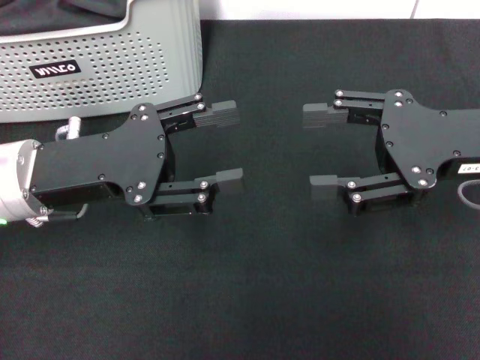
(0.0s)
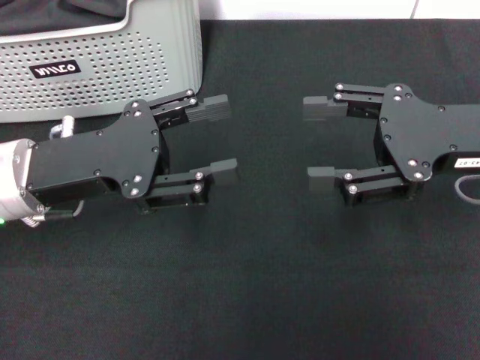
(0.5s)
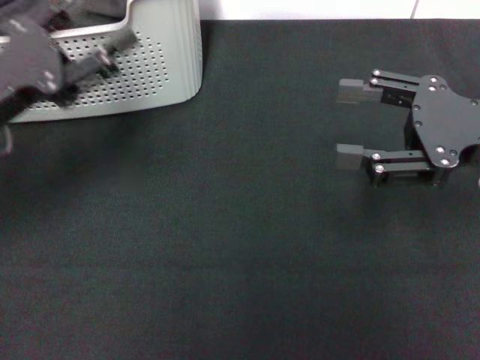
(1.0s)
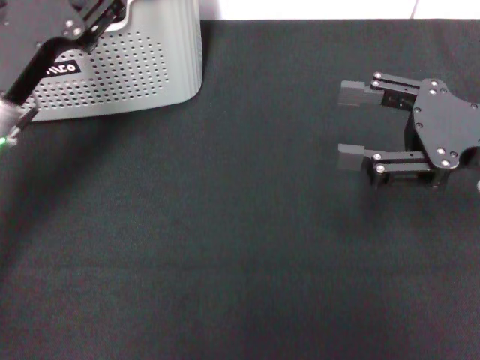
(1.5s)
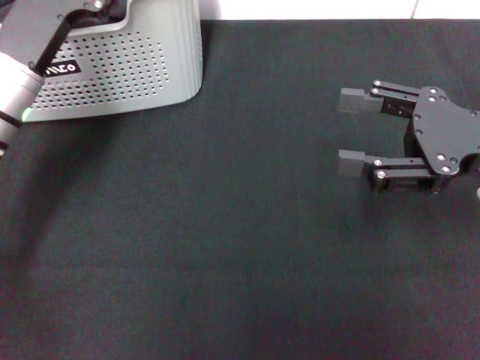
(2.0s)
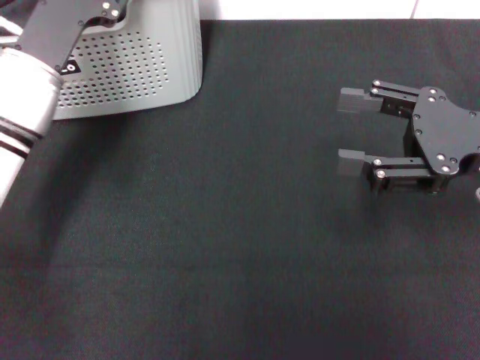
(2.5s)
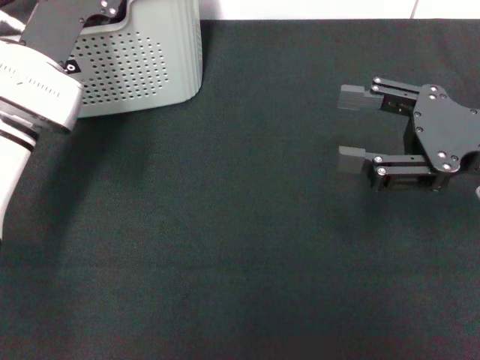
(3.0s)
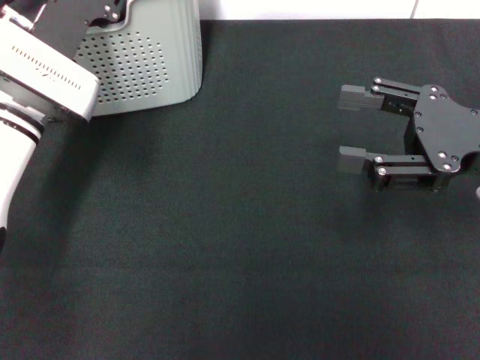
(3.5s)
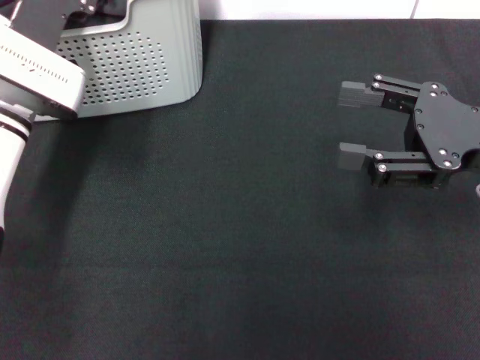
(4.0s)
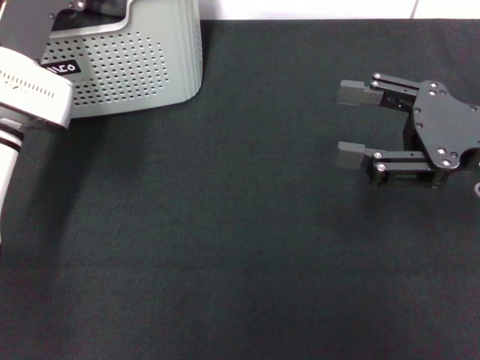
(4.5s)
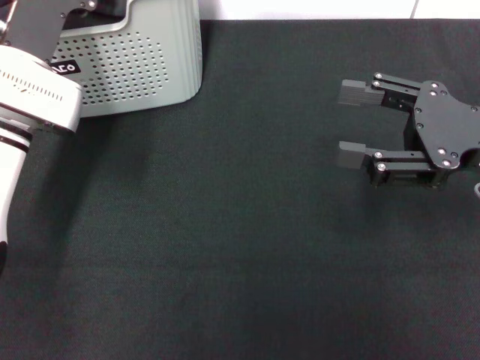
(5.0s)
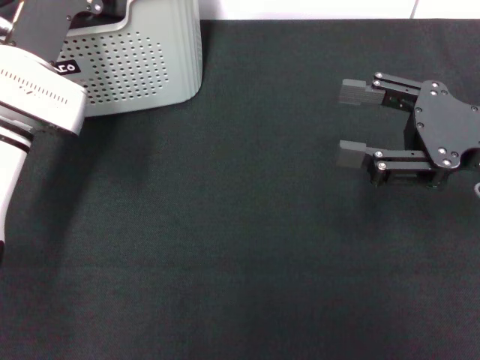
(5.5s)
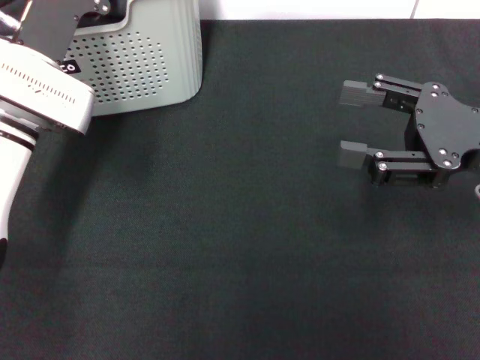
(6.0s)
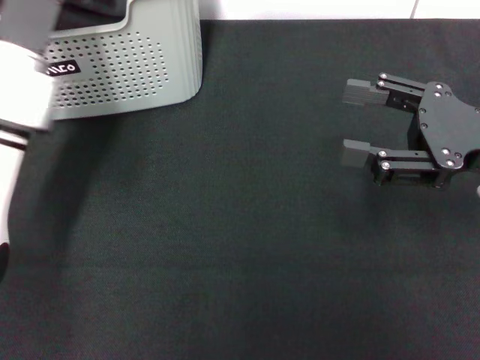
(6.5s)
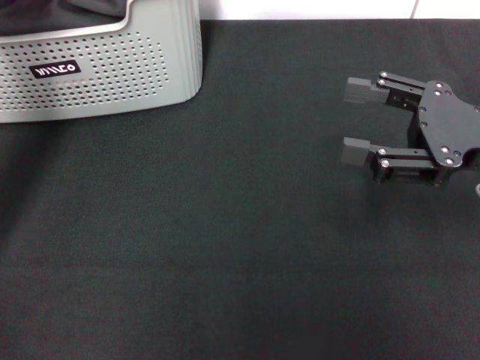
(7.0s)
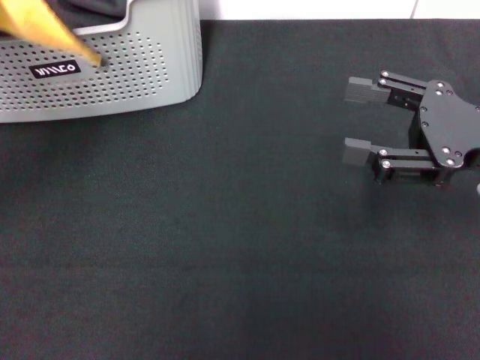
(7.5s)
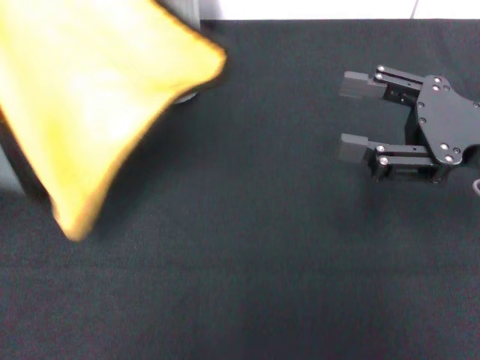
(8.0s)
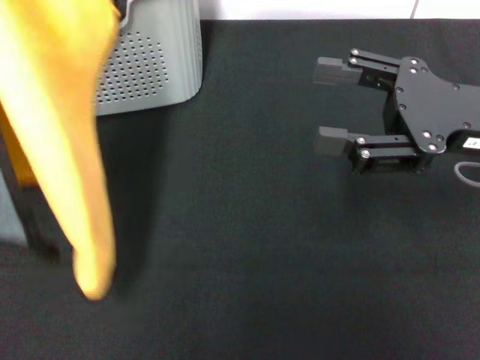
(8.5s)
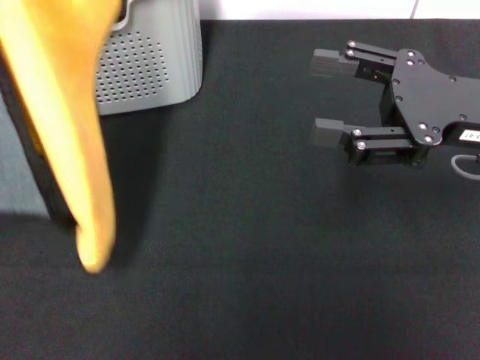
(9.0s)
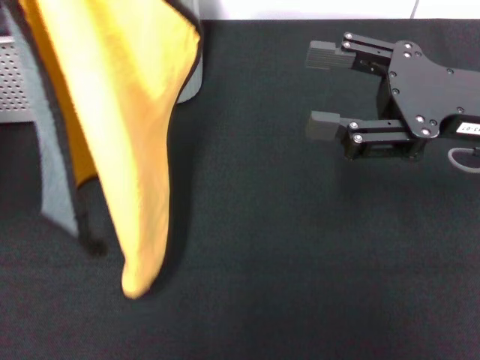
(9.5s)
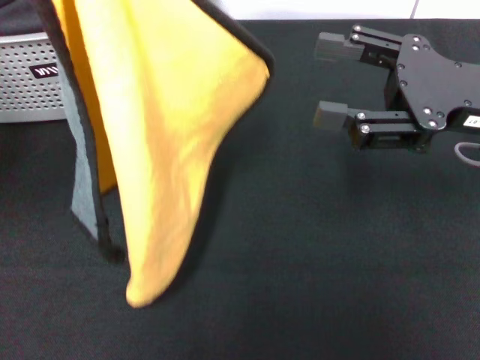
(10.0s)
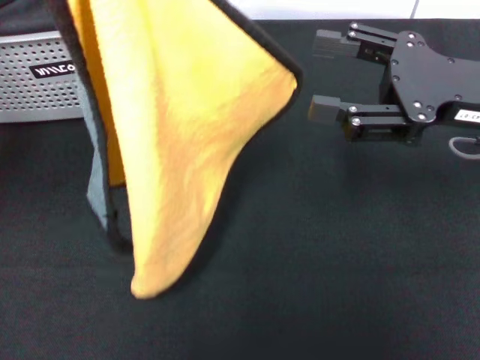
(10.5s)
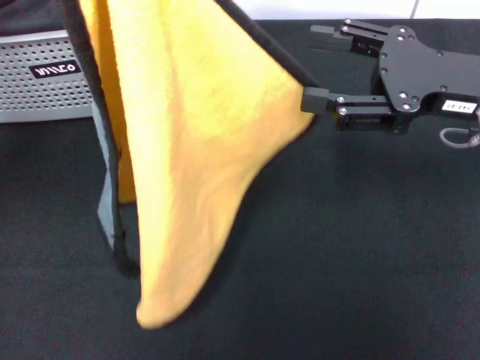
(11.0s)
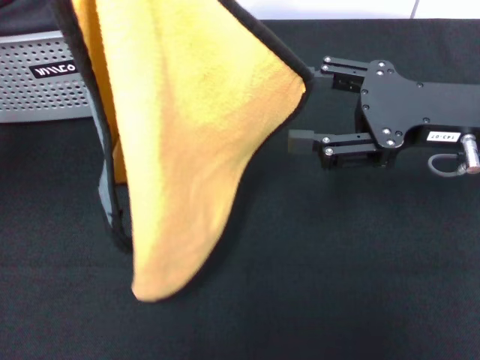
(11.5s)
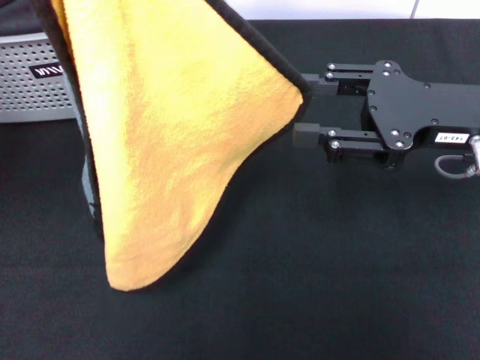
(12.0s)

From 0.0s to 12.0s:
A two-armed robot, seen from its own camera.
Task of the whole recording: pick up the towel from the storage box and lay it flat on the black tablecloth.
Step, from 0.0s to 6.0s: Pick up a towel with the left gripper.
From 0.0s to 2.0s: The left gripper travels forward by roughly 5 cm.
From 4.0s to 6.0s: The left gripper closes up.
From 6.0s to 8.0s: The left gripper moves upward, backward and to the left, about 20 cm.

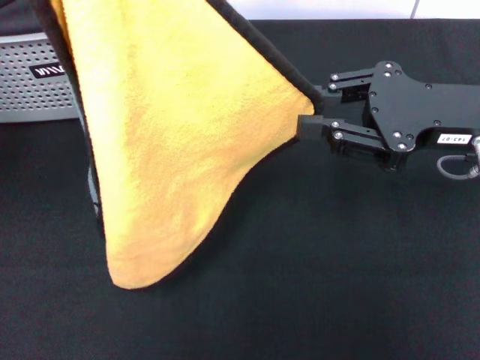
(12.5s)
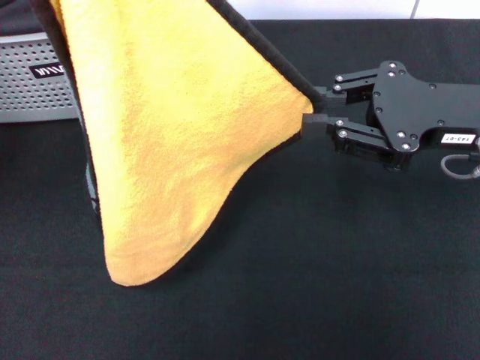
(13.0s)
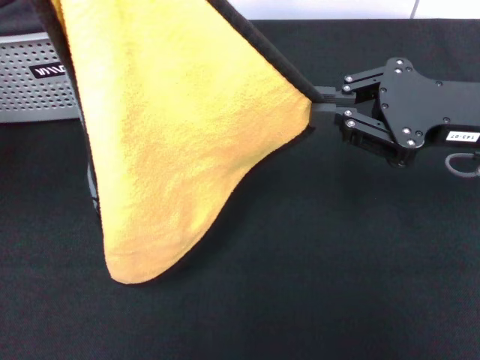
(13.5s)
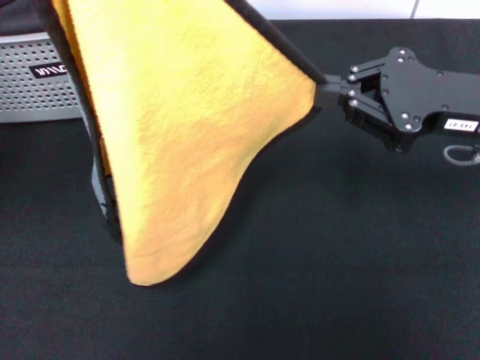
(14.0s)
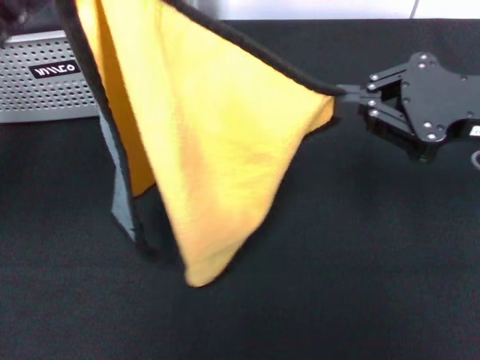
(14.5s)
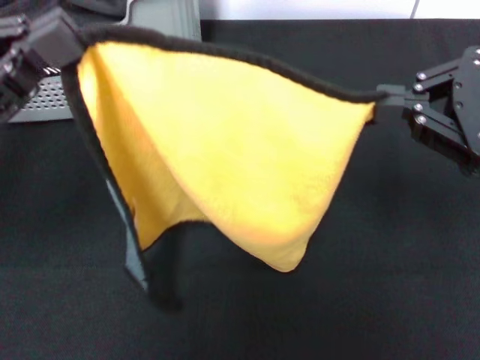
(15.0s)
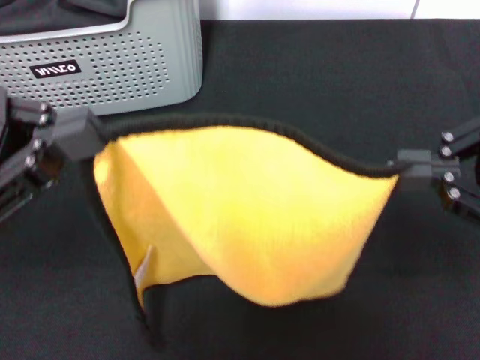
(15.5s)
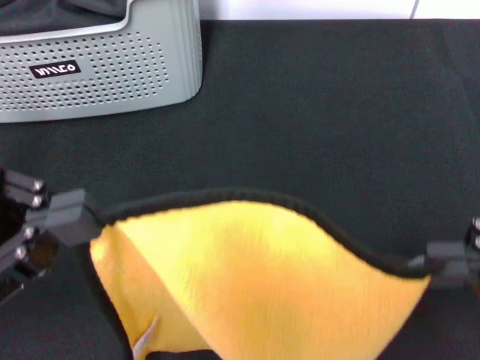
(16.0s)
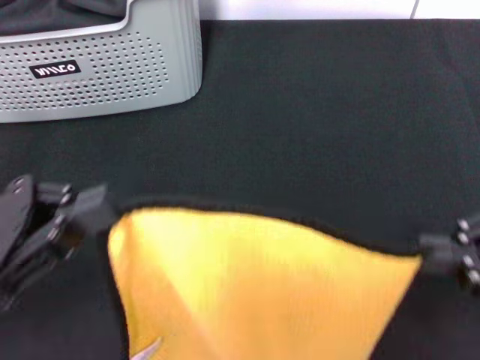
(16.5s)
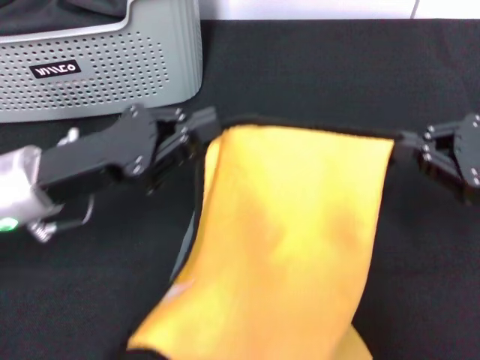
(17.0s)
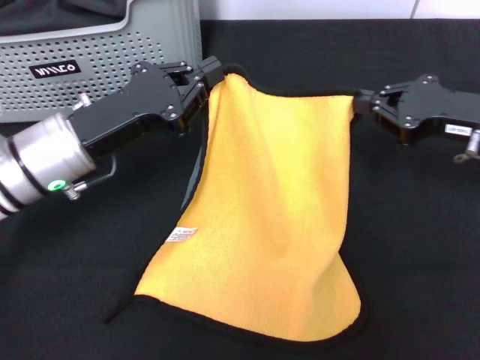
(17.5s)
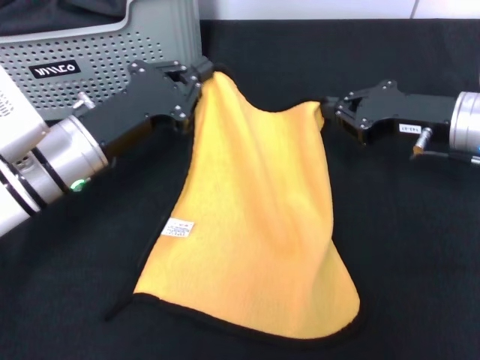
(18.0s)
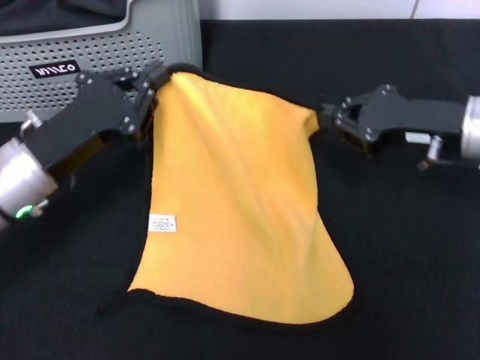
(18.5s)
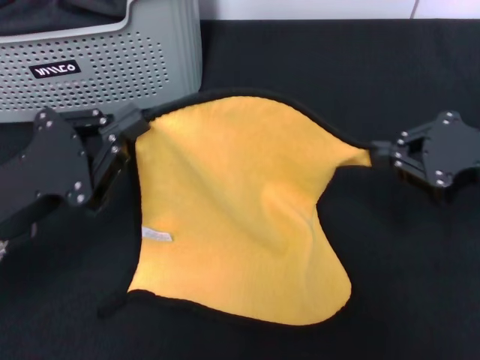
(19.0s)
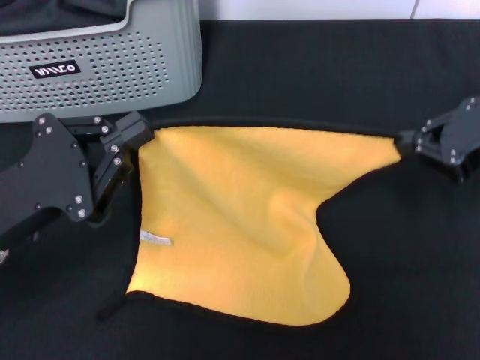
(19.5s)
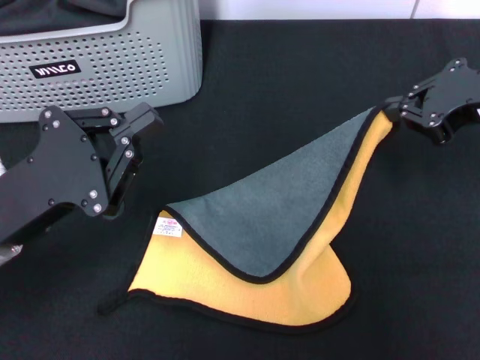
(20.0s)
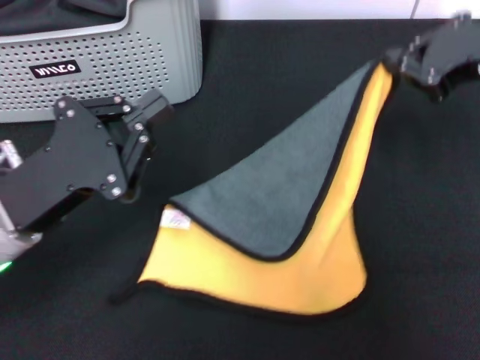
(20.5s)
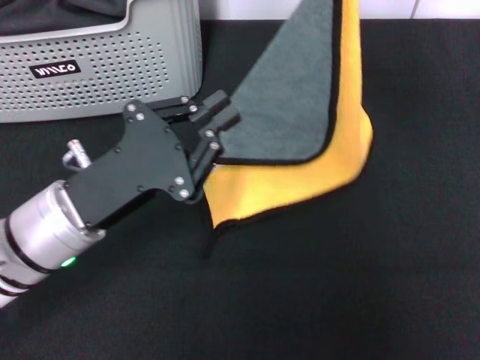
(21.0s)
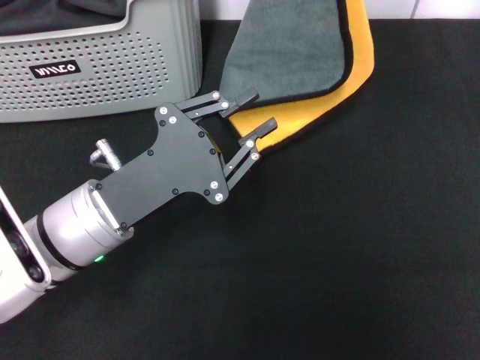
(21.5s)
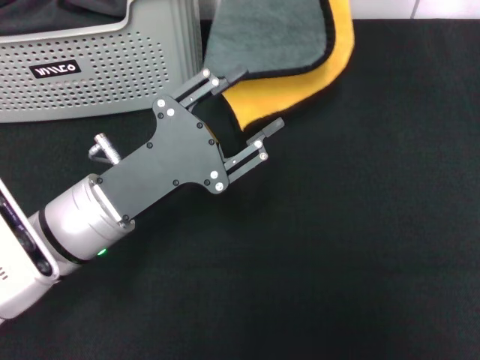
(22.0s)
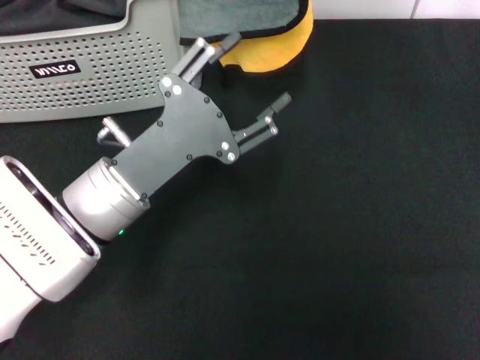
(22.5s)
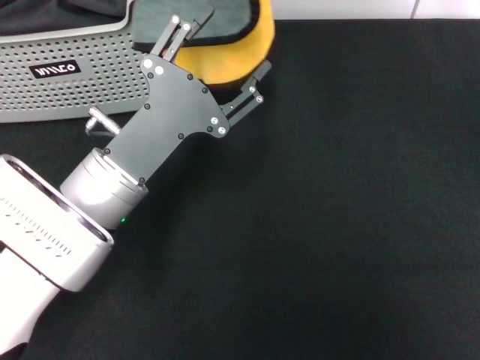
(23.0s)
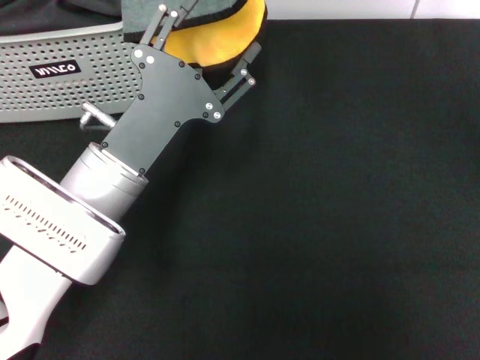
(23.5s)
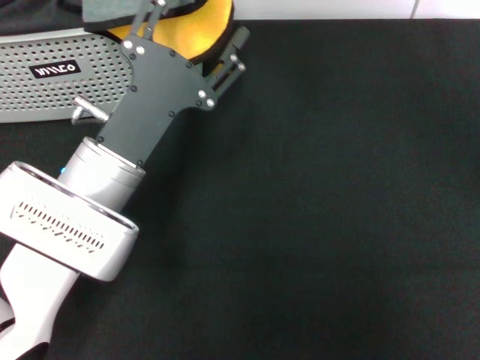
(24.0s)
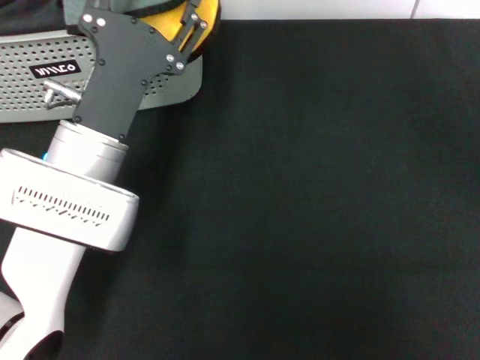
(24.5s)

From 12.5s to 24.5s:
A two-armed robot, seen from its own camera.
Task of the whole recording: pick up the towel from the storage box and lay it flat on the black tablecloth.
From 12.5s to 14.5s: The right gripper closes its fingers.
From 14.5s to 16.5s: The right gripper heads backward, covering about 10 cm. The left gripper is displaced backward and downward by approximately 10 cm.
From 16.5s to 18.5s: Both grippers move forward and downward, about 15 cm.
From 18.5s to 20.5s: The right gripper heads upward, covering approximately 15 cm. The left gripper shifts approximately 5 cm backward.
From 20.5s to 22.5s: The right gripper goes some 20 cm upward and to the left. The left gripper moves to the right, roughly 10 cm, and opens up.
From 22.5s to 24.5s: The right gripper goes approximately 10 cm to the left.

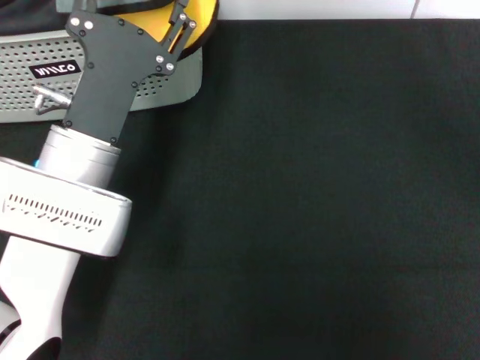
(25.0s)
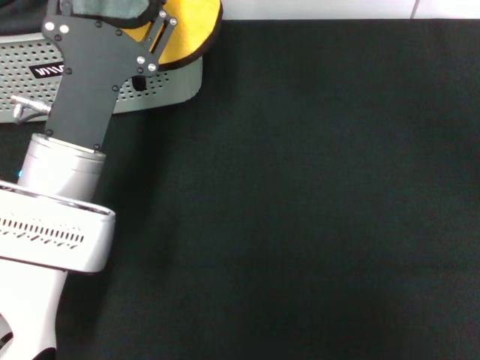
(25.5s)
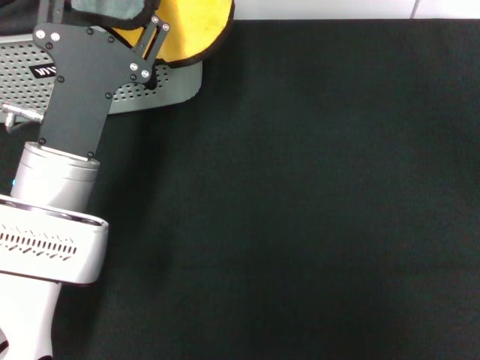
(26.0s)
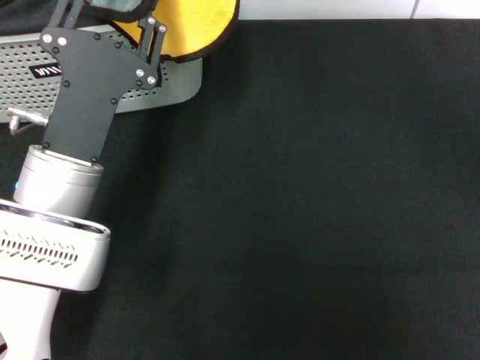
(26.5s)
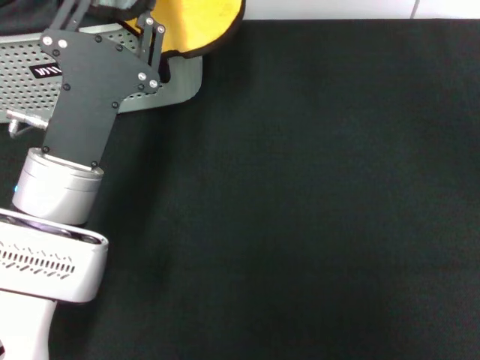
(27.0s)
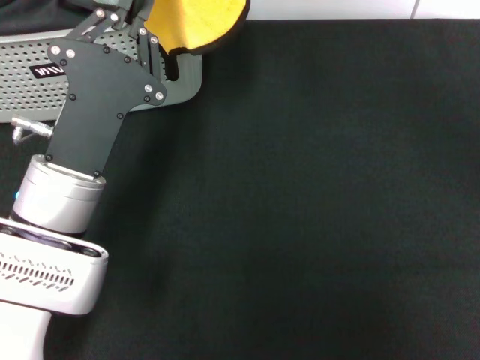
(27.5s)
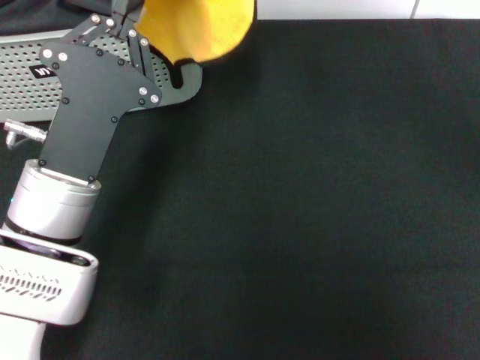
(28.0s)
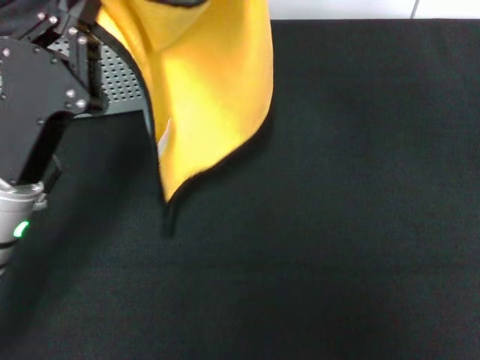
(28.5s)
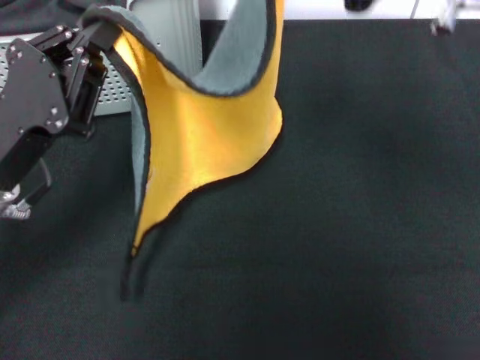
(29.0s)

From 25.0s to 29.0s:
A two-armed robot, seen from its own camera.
Task of the whole recording: pick up the towel from the storage box and lay it flat on the black tablecloth.
From 25.0s to 27.0s: The left gripper closes.
From 27.0s to 29.0s: The right gripper moves downward, to the right and backward, approximately 15 cm. Meanwhile the left gripper shifts some 5 cm to the left, and closes.
